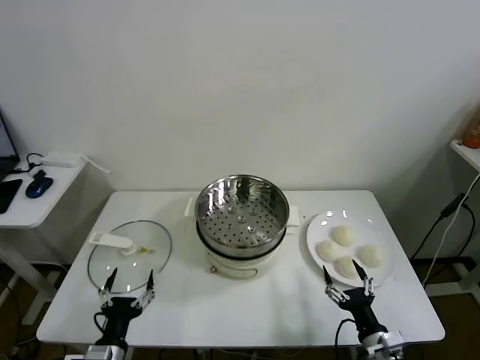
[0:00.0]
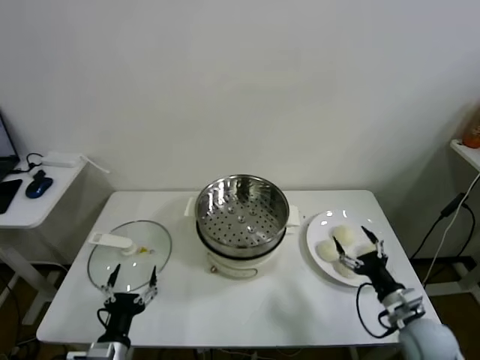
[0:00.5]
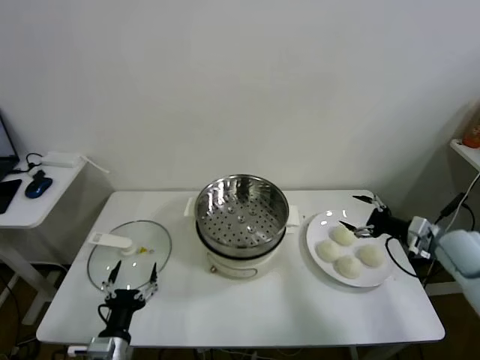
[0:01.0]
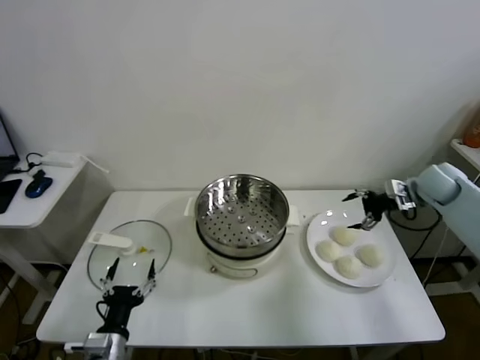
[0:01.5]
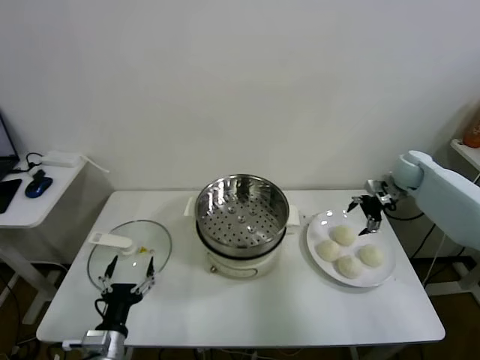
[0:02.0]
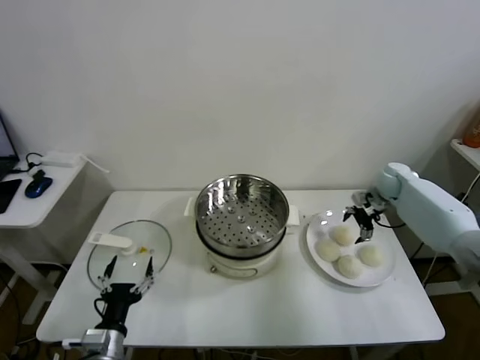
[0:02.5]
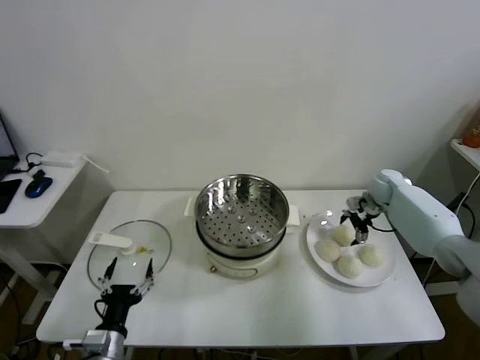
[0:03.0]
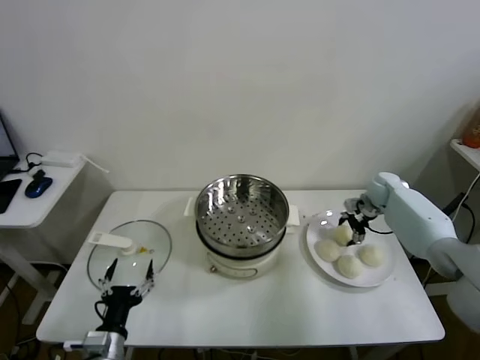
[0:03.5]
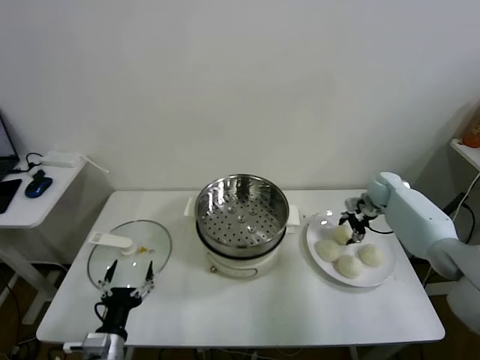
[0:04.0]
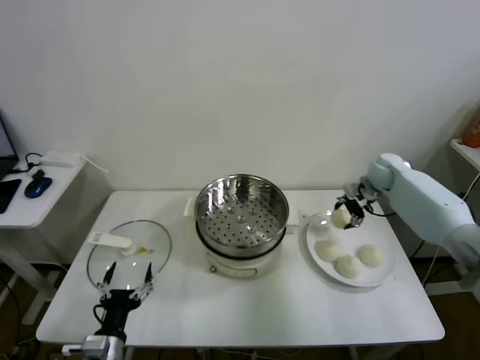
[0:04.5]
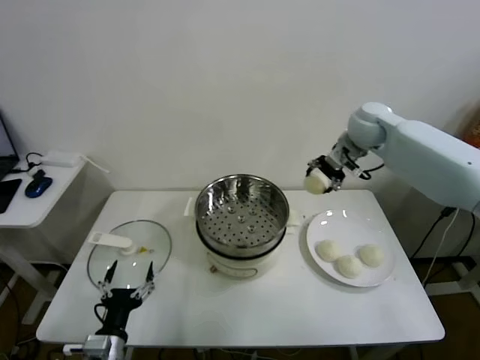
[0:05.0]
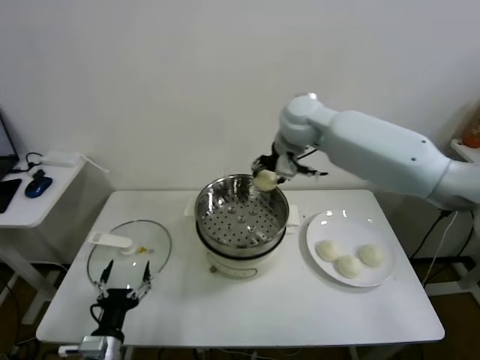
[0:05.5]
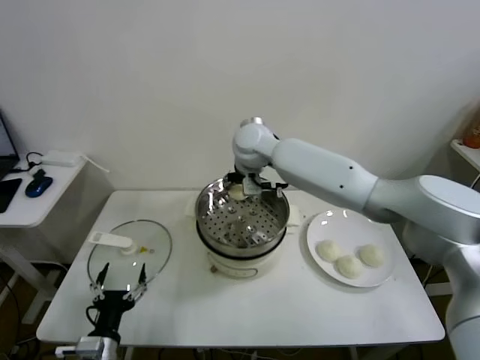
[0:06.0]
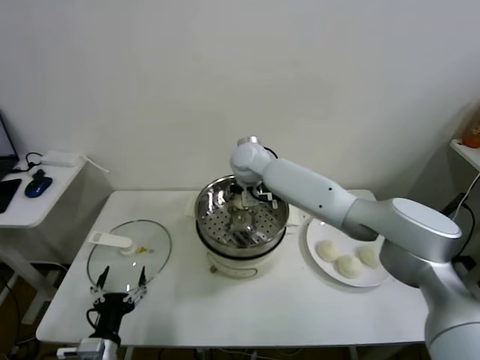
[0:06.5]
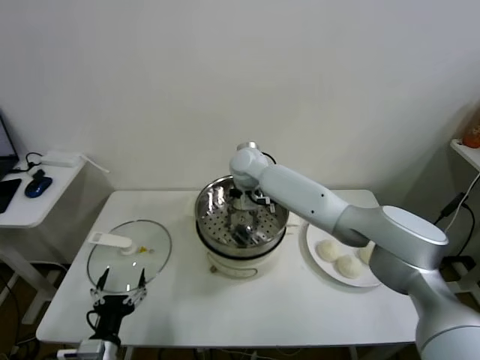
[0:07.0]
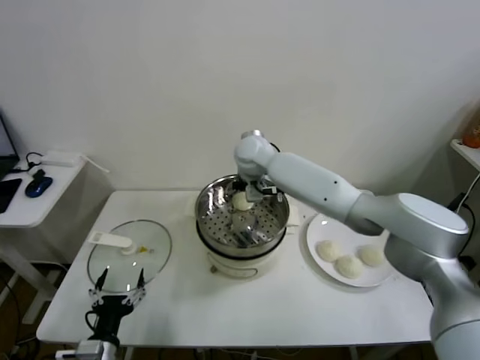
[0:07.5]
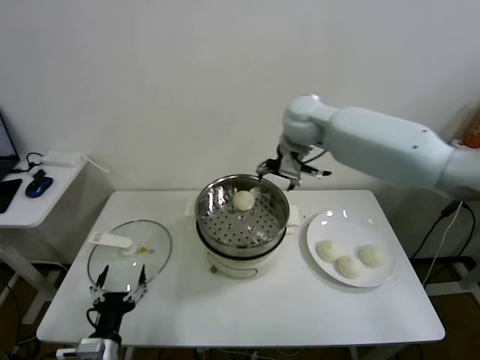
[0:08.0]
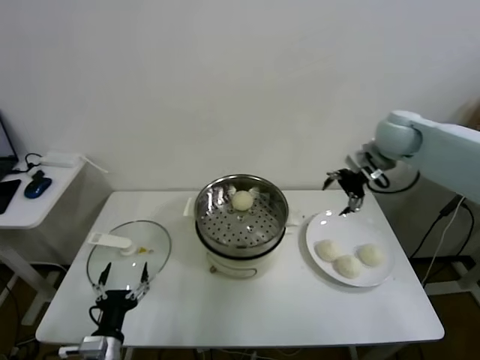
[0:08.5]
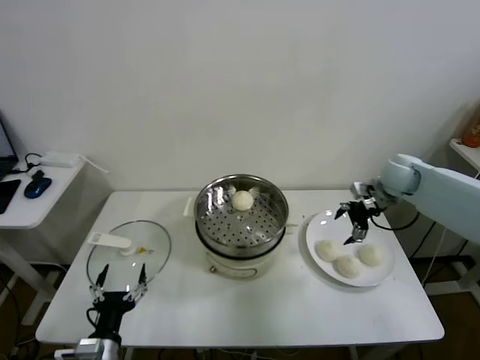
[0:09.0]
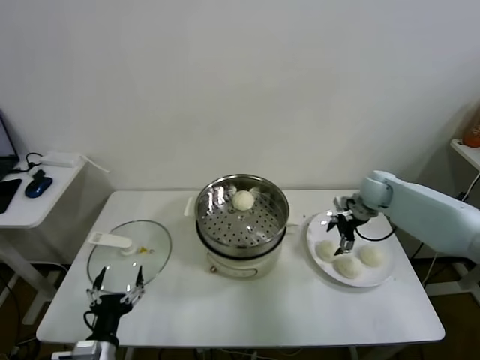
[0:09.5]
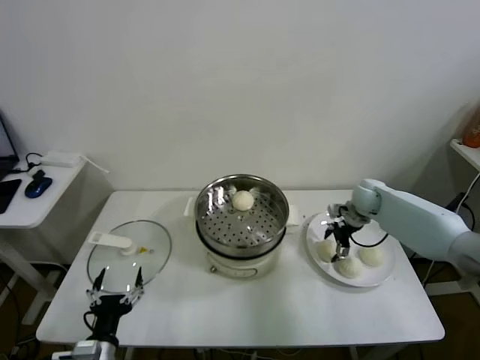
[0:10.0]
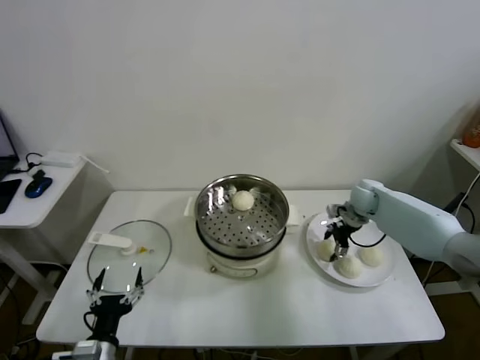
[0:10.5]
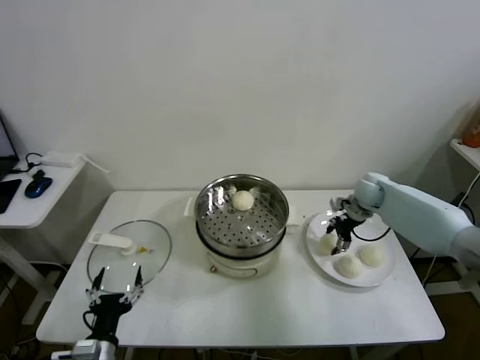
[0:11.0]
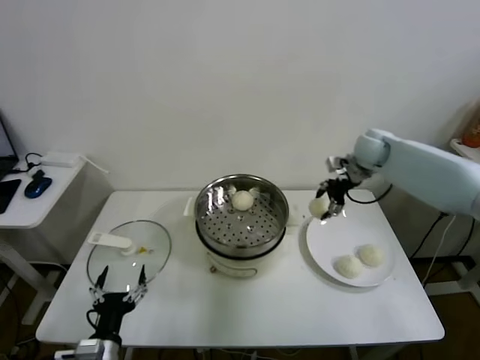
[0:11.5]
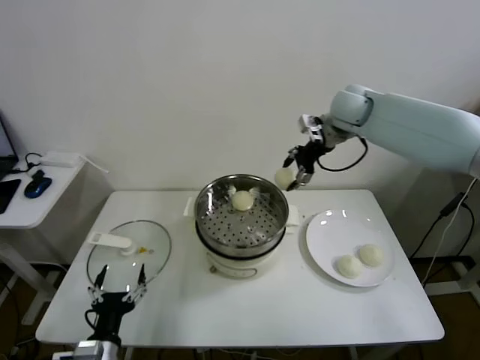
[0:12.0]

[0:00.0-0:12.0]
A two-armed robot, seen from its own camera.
Task of the whole recording: take steamed baozi put them in steamer.
Step, 0:00.0 to 0:03.5: Grasp the baozi in the plate with right gripper.
Step, 0:04.0 to 0:07.0: Place the baozi on the steamer with right gripper.
Step, 0:08.0 to 0:10.5: Grasp the baozi in the plate with right gripper.
0:02.0 to 0:04.0: The right gripper travels downward by roughly 10 cm, and closes up.
0:04.0 to 0:06.0: The right gripper shifts about 40 cm to the left and upward.
0:06.0 to 0:08.0: The right gripper goes about 15 cm to the right and upward, and opens.
0:08.0 to 0:10.0: The right gripper travels downward and to the right by some 30 cm.
0:10.0 to 0:12.0: The right gripper is displaced upward and to the left by roughly 30 cm, and closes its fingers.

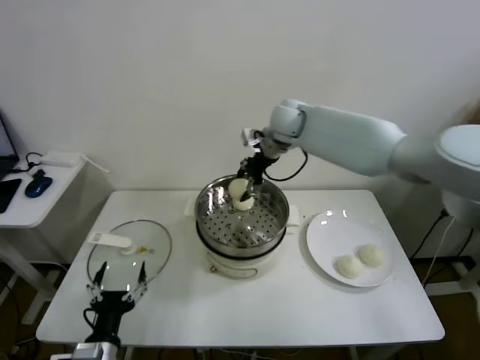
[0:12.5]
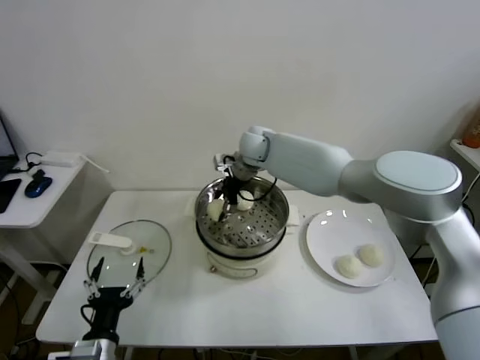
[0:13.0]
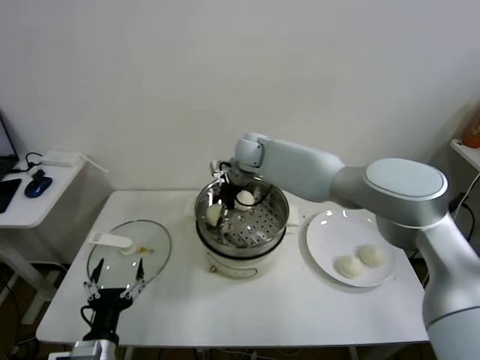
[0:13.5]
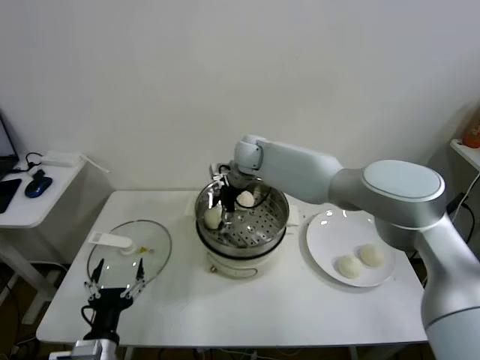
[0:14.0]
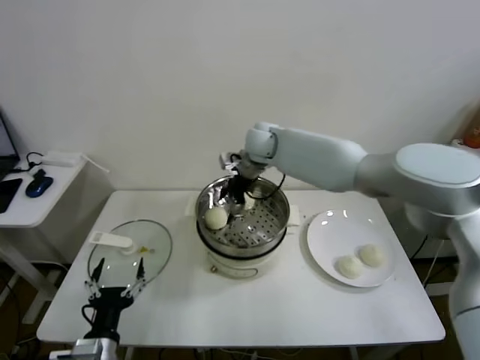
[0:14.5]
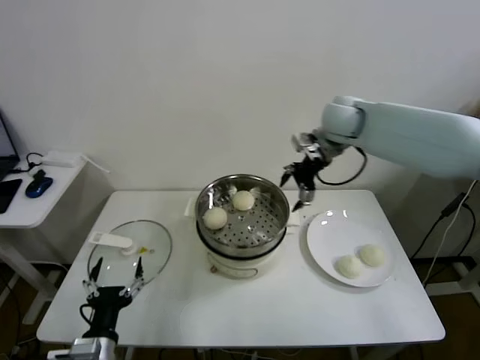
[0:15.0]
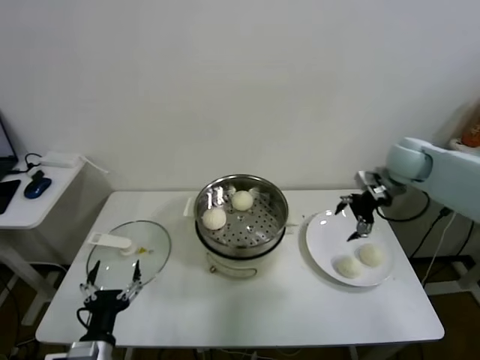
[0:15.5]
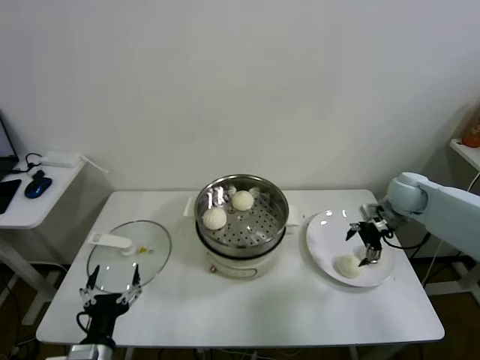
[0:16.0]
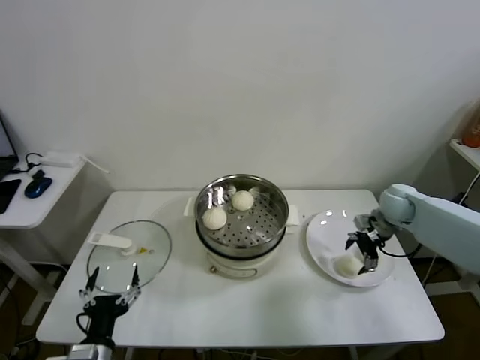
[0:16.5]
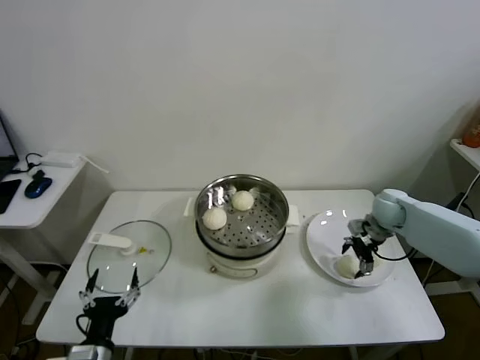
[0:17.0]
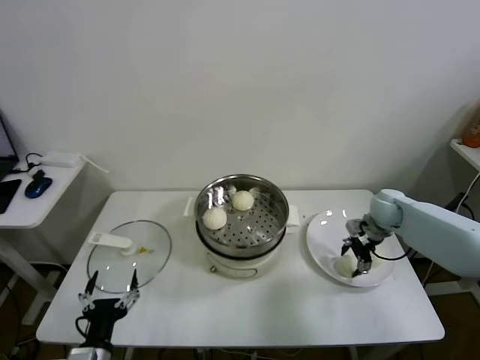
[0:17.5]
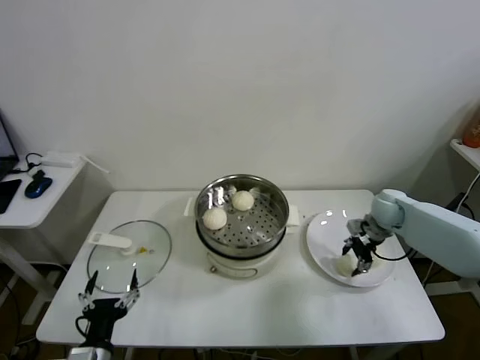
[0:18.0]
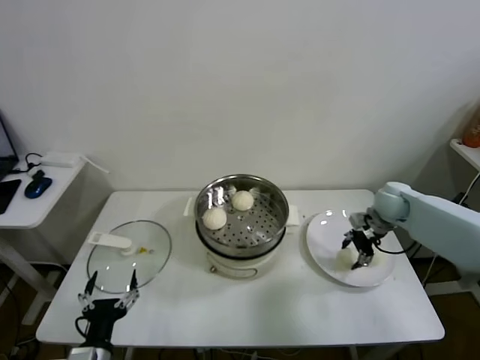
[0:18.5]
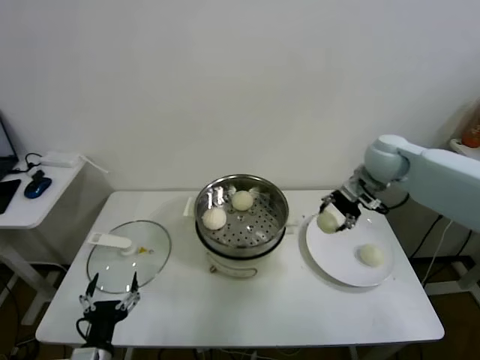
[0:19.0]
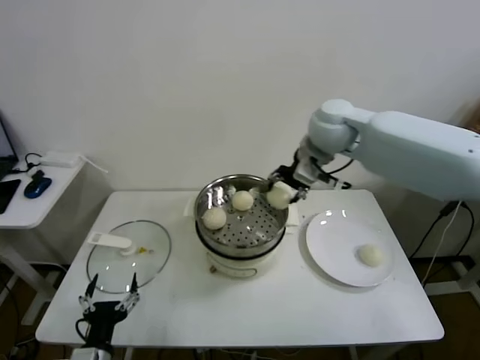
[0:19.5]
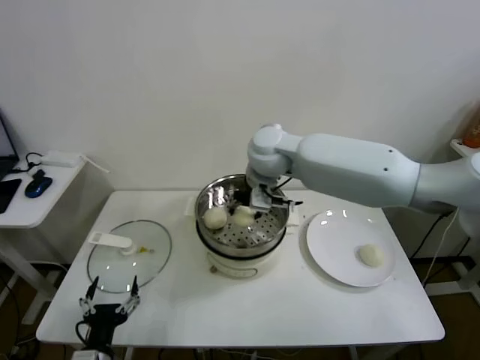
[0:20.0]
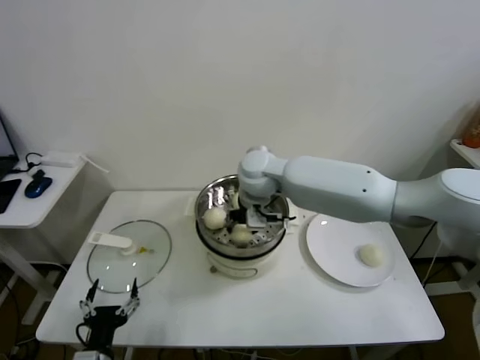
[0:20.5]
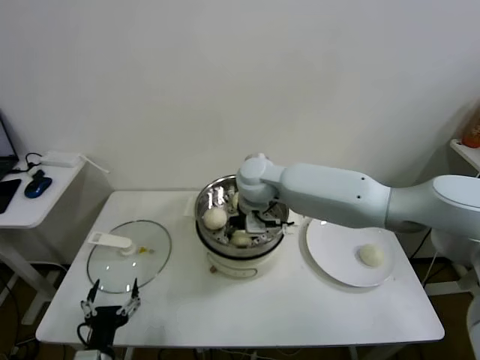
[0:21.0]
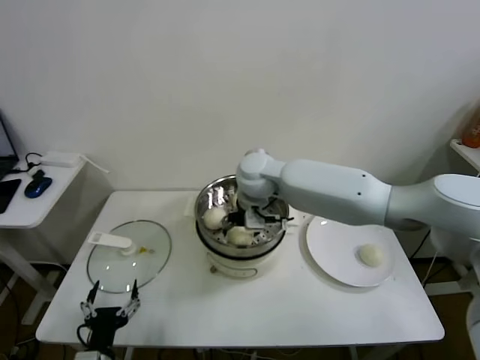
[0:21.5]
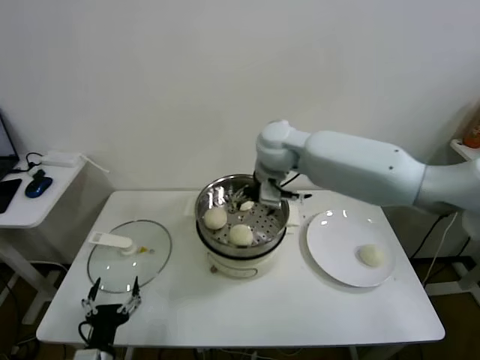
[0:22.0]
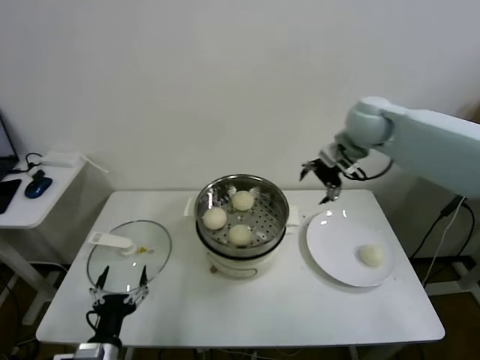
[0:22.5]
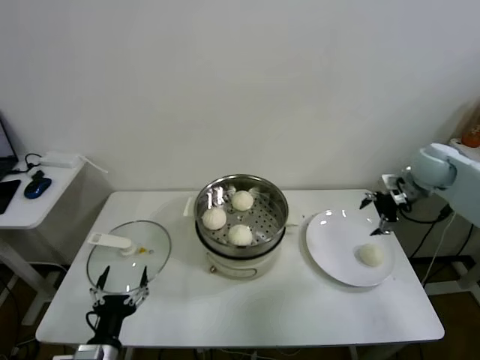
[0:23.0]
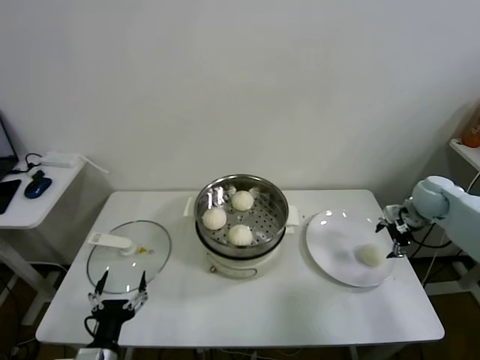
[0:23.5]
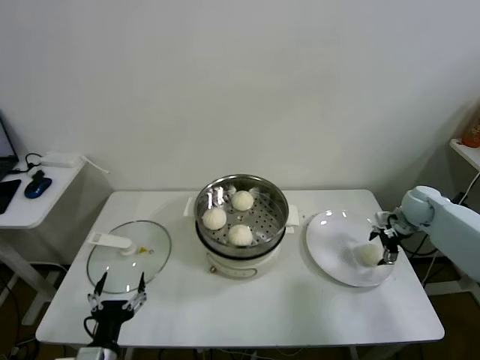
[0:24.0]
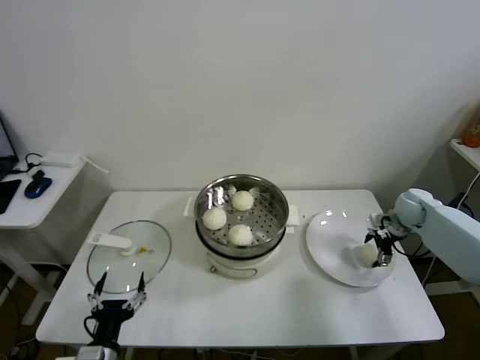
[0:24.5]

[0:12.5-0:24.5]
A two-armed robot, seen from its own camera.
Task of the whole recording: take steamed baozi put them in steamer.
Step, 0:14.5 to 0:17.5: Grasp the baozi in the plate with right gripper.
Step, 0:18.5 to 0:21.5: Place the baozi on the steamer with right gripper.
0:12.5 to 0:14.5: The right gripper opens its fingers.
0:14.5 to 0:16.5: The right gripper heads to the right and downward, covering roughly 35 cm.
0:16.5 to 0:18.5: The right gripper closes up.
0:18.5 to 0:20.5: The right gripper shifts approximately 35 cm to the left.
0:20.5 to 0:22.5: The right gripper moves to the right and upward, roughly 25 cm, and opens up.
0:22.5 to 0:24.5: The right gripper is displaced downward and to the right by about 30 cm.

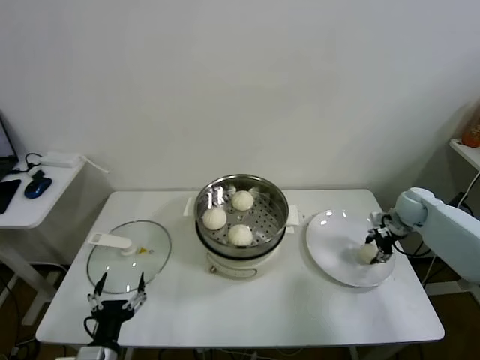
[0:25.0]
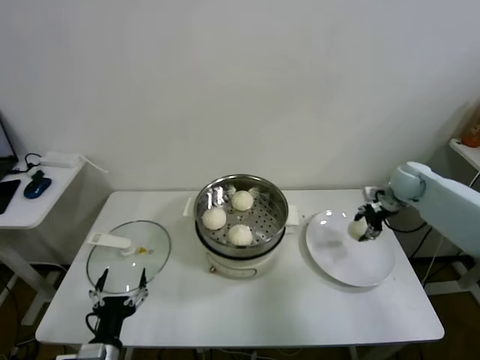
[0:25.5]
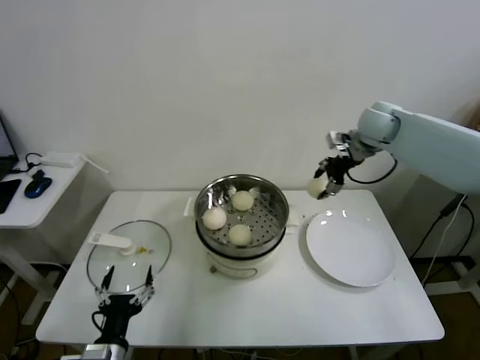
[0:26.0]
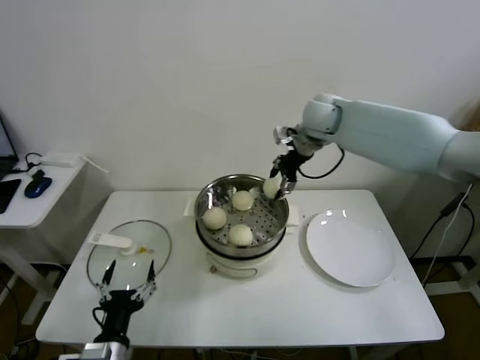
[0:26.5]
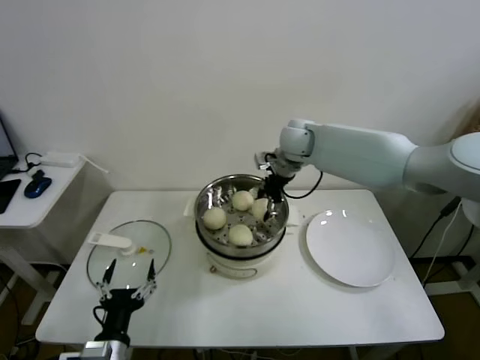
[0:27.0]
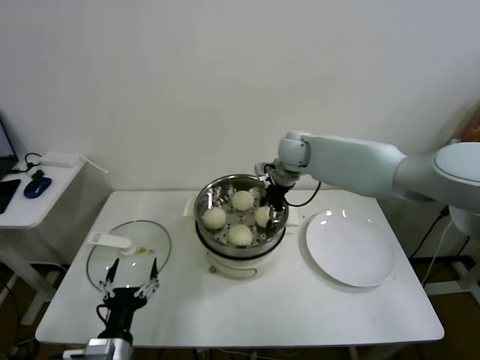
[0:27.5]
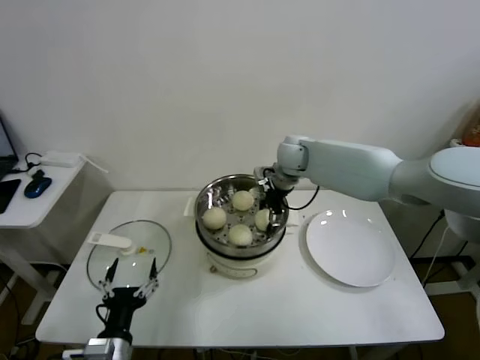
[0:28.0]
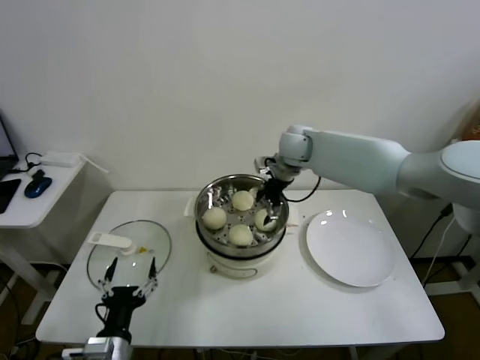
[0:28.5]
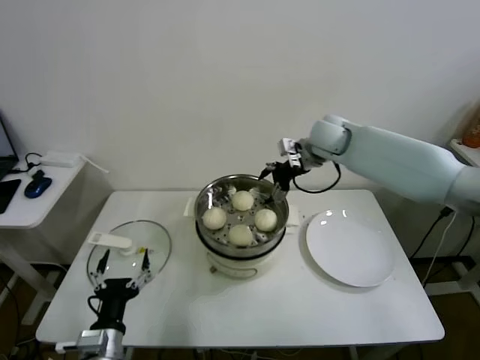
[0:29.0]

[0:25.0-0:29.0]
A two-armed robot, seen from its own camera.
Task of the whole recording: take steamed baozi put them in steamer.
Step, 0:25.5 to 0:28.0: Place the baozi on the steamer with right gripper.
0:25.0 to 0:27.0: The right gripper travels to the left and upward by some 35 cm.
0:27.0 to 0:29.0: The right gripper is displaced to the right by roughly 5 cm, and opens its fingers.
